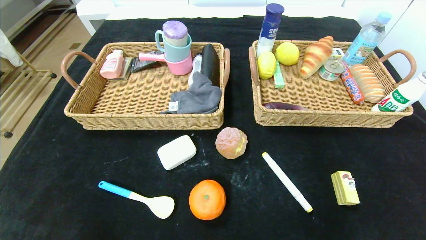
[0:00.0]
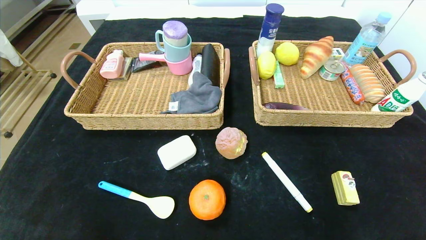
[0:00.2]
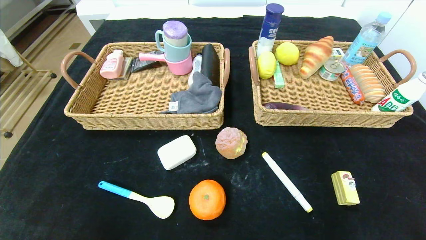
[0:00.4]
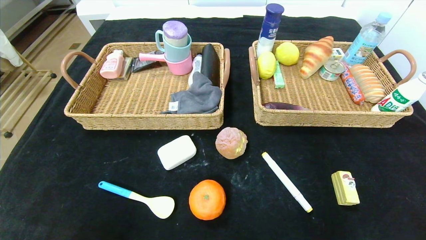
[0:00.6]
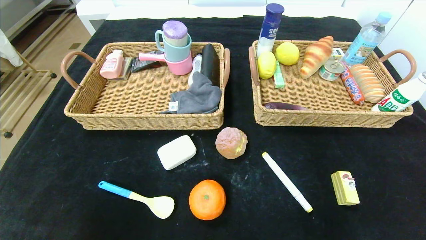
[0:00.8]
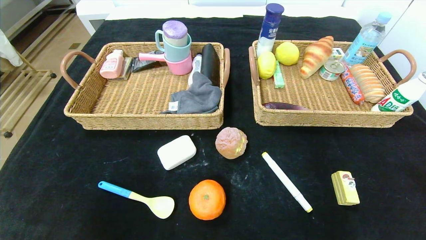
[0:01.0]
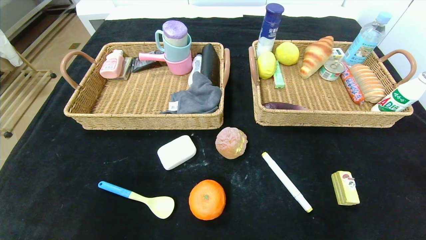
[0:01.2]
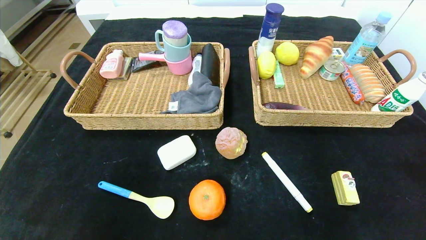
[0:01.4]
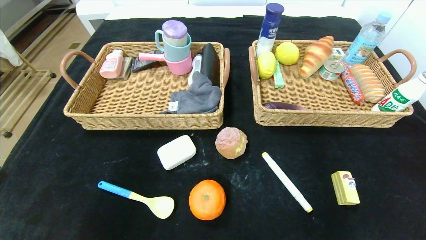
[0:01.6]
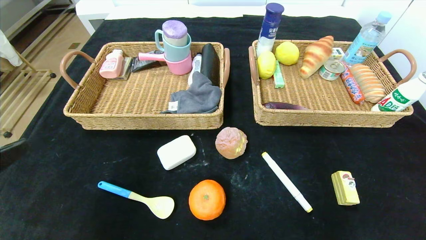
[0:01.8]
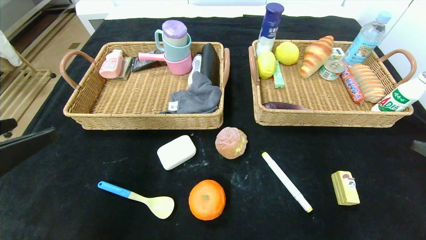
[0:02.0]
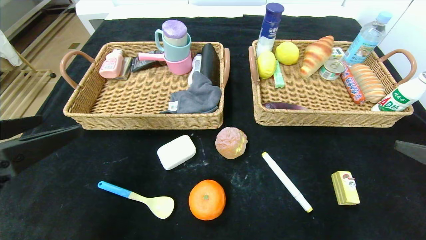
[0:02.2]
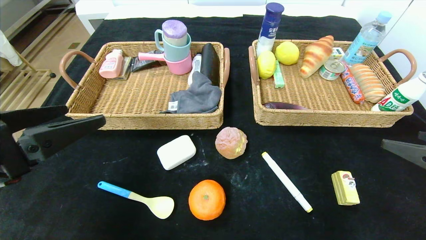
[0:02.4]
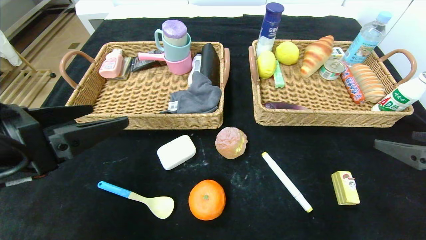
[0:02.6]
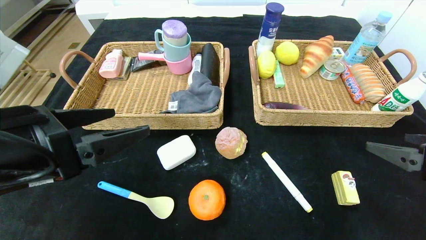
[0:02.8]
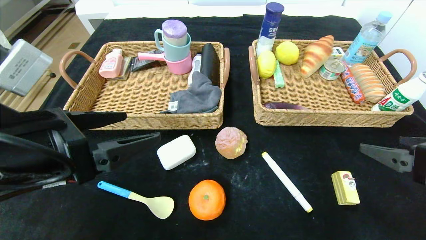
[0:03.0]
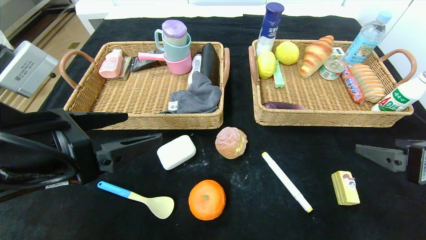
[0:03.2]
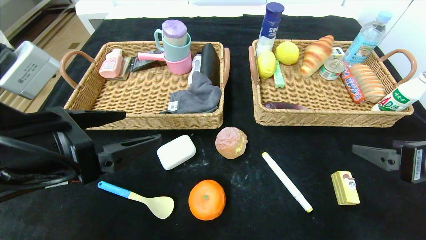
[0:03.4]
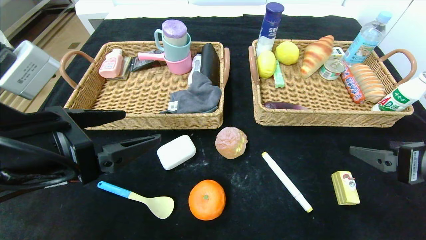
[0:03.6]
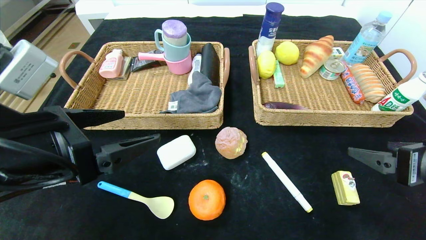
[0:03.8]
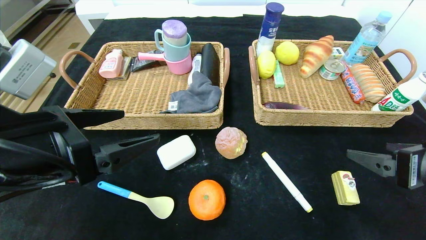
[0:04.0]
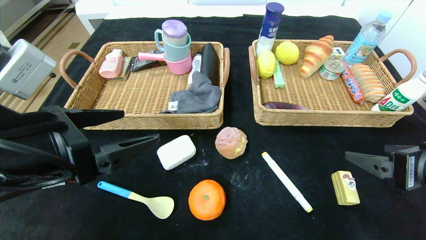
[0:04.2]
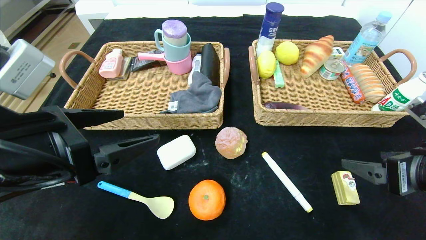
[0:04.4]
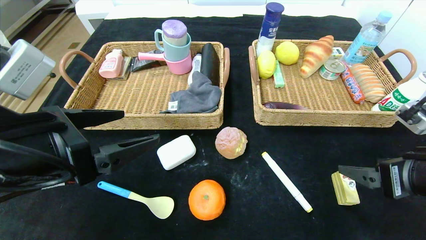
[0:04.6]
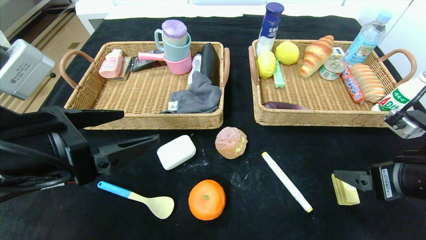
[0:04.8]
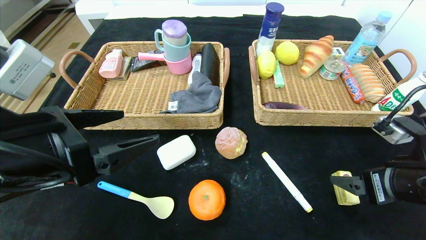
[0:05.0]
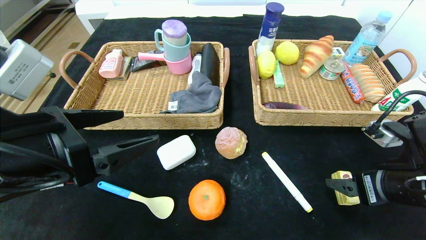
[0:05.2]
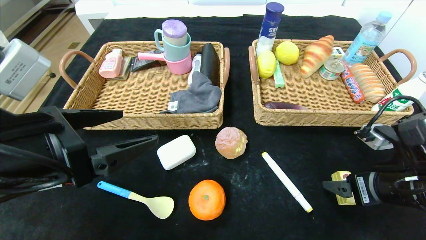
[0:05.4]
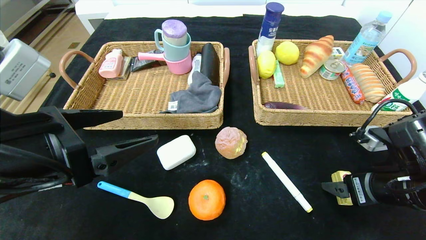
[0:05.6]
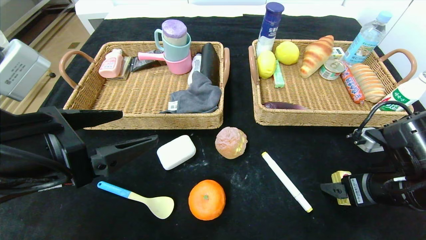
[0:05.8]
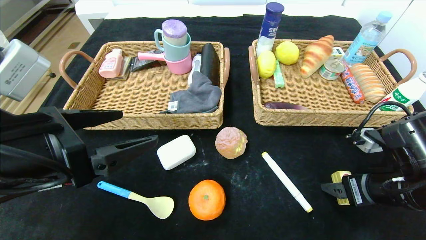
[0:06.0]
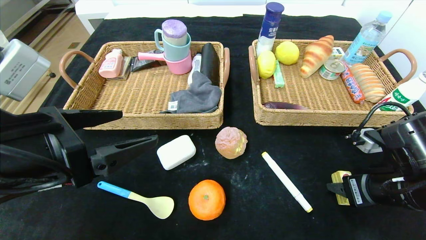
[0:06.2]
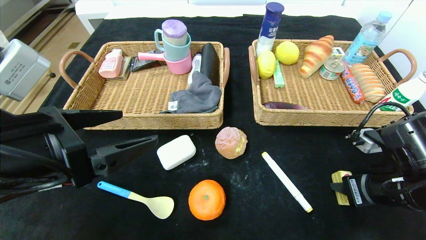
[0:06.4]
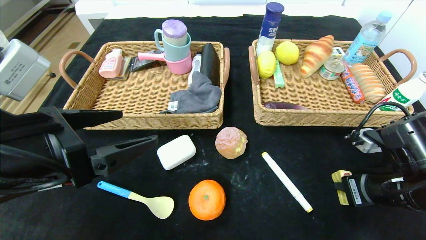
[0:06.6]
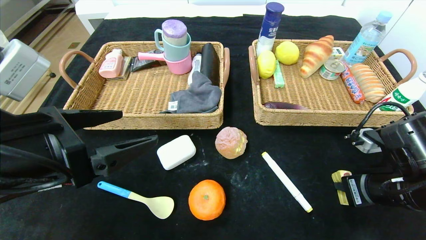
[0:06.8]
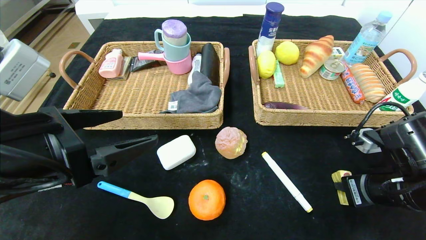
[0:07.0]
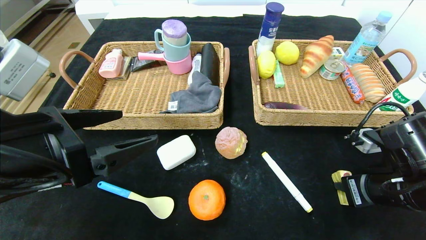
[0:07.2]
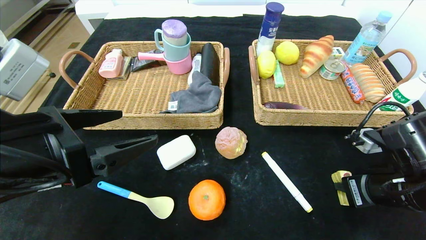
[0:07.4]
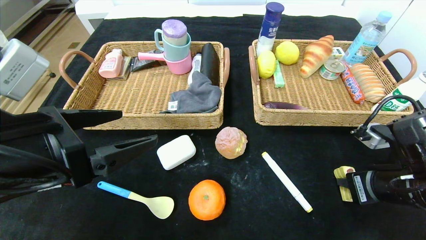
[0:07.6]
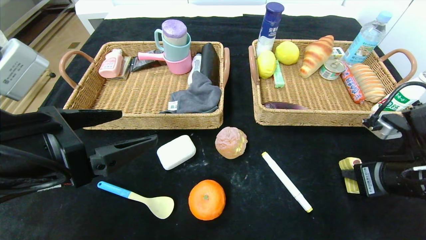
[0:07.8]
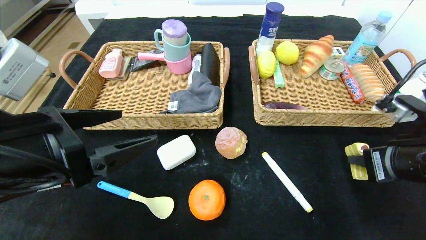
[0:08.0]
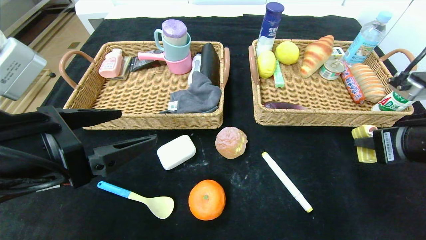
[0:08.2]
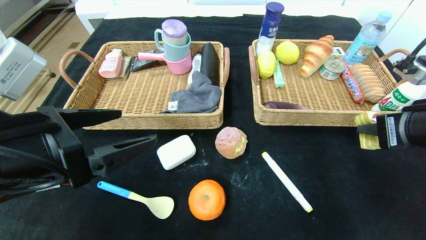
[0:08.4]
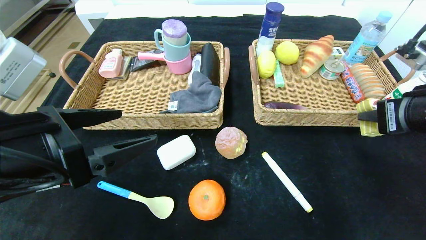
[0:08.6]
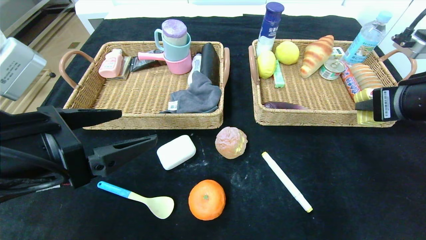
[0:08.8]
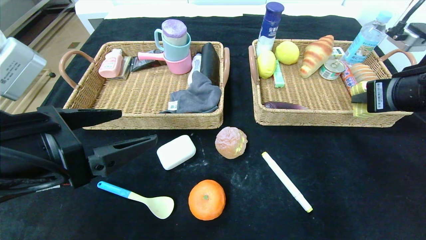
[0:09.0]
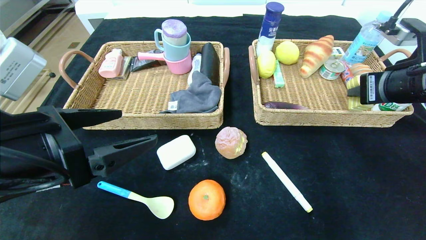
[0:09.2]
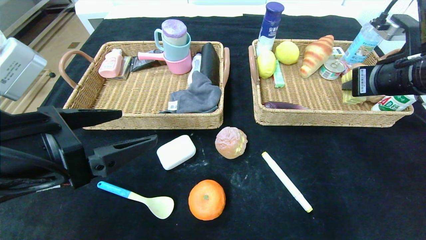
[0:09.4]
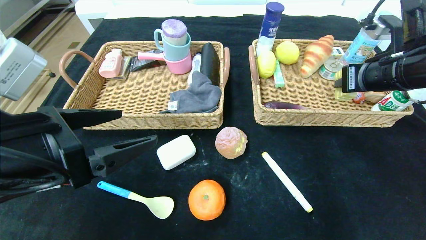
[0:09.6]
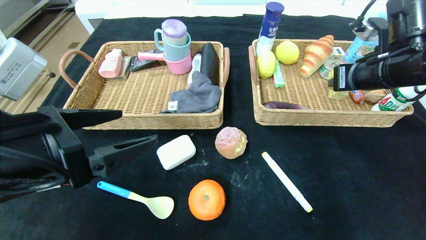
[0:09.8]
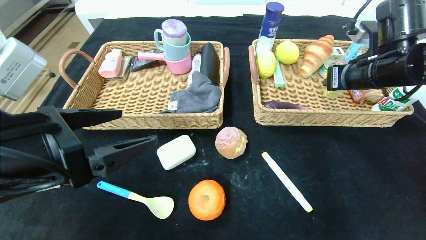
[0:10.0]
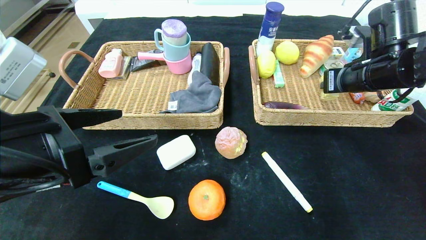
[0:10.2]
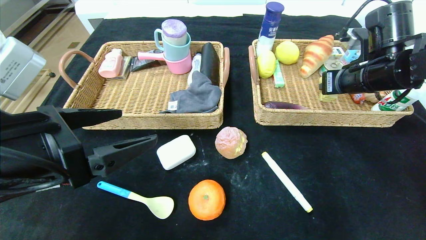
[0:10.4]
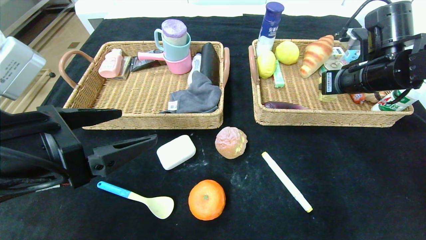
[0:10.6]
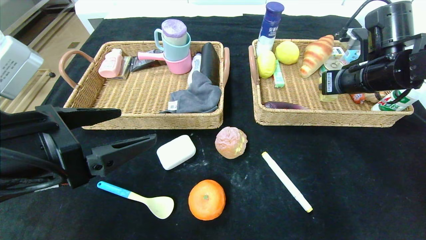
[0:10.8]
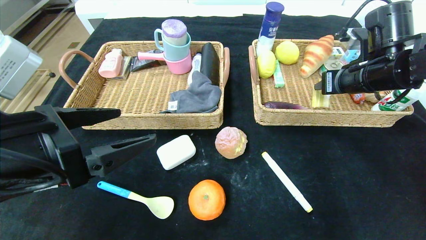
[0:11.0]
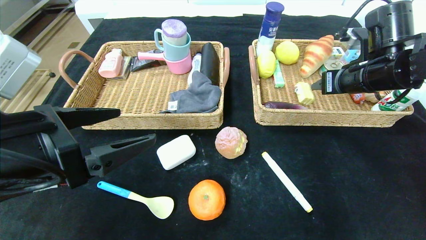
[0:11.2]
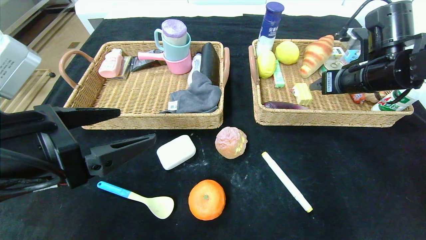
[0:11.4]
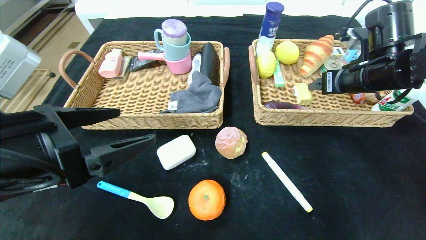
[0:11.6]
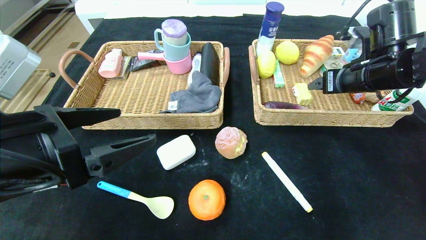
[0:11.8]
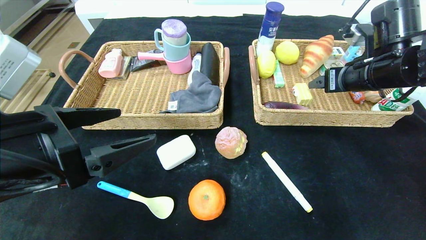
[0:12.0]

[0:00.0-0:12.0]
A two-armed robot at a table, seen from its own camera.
Step, 0:00.0 to 0:11.4: Grasp the yellow cake and put it in the right basket.
0:00.0 to 0:01.6: The left gripper is displaced upward by approximately 20 cm.
0:01.6 to 0:03.0: The right gripper shifts approximately 10 cm forward; the left gripper heads forward and to the right, covering approximately 15 cm.
0:03.0 to 0:04.4: There are only small adjustments of the grippers.
0:04.4 to 0:06.0: The right gripper shifts approximately 5 cm downward.
0:06.0 to 0:07.6: The right gripper closes.
0:07.6 to 0:09.0: The right gripper goes roughly 10 cm upward.
0:09.0 to 0:10.4: The right gripper heads forward, covering approximately 10 cm.
0:10.4 to 0:12.0: The right gripper opens its fingers.

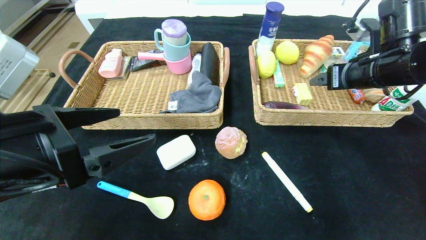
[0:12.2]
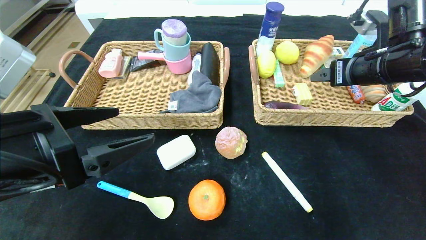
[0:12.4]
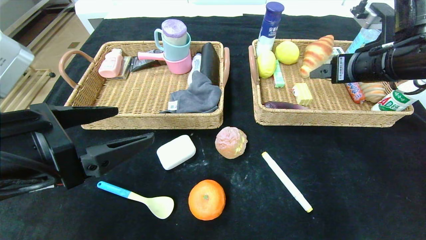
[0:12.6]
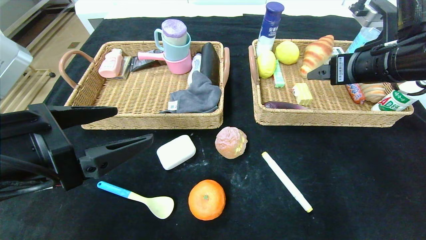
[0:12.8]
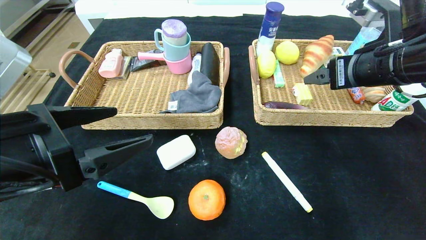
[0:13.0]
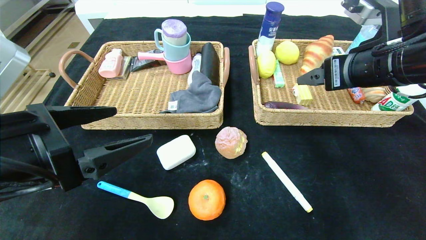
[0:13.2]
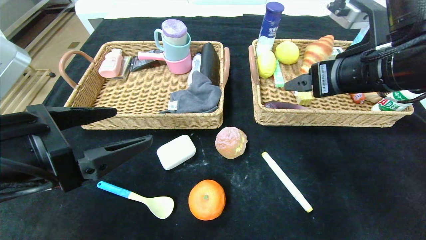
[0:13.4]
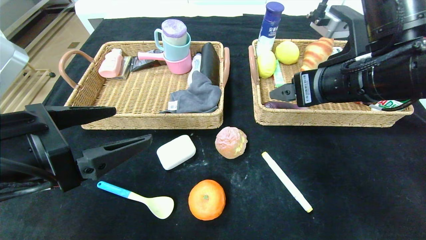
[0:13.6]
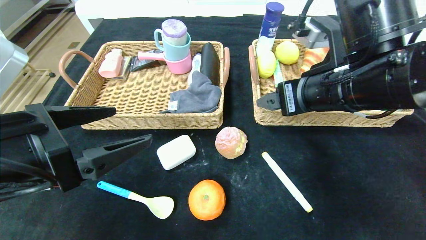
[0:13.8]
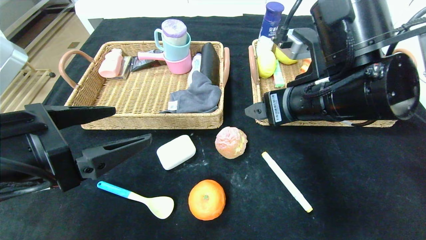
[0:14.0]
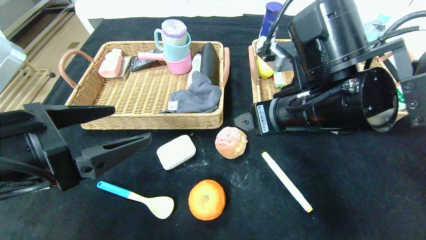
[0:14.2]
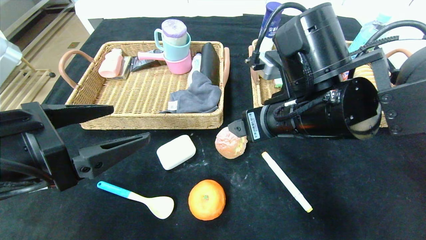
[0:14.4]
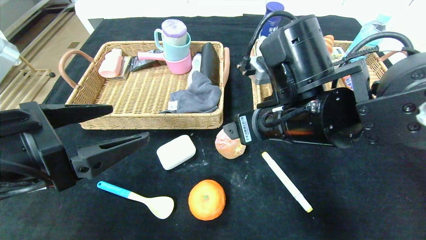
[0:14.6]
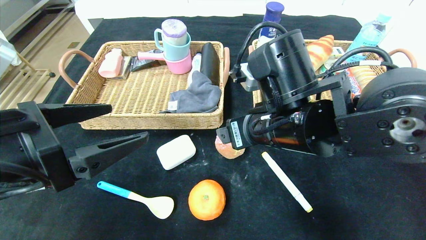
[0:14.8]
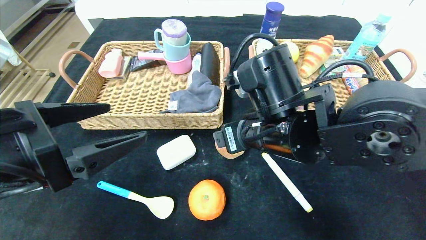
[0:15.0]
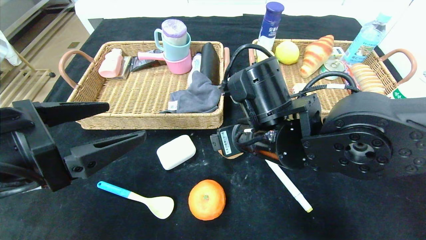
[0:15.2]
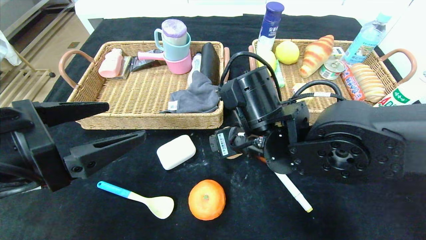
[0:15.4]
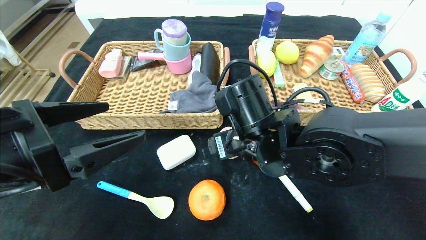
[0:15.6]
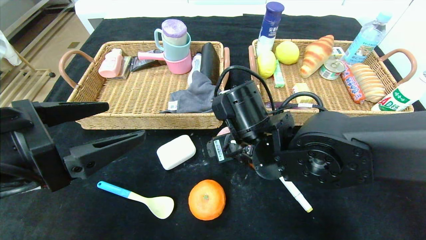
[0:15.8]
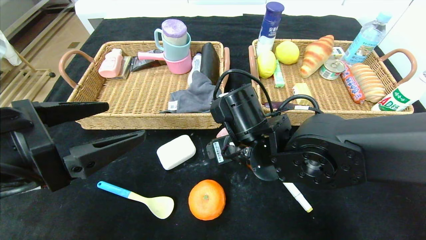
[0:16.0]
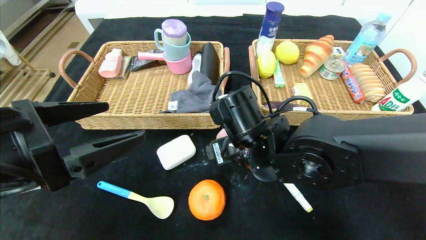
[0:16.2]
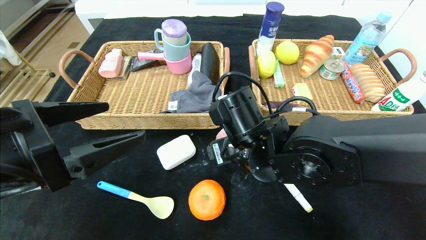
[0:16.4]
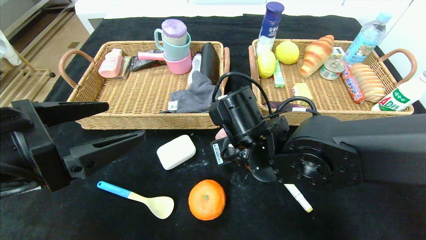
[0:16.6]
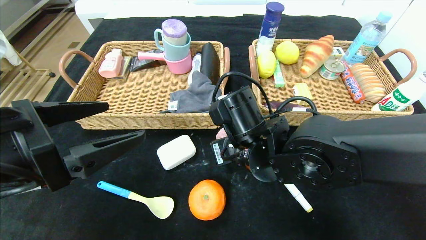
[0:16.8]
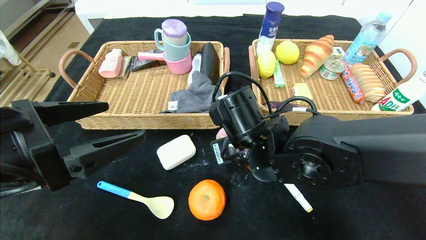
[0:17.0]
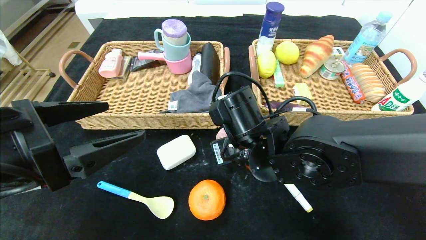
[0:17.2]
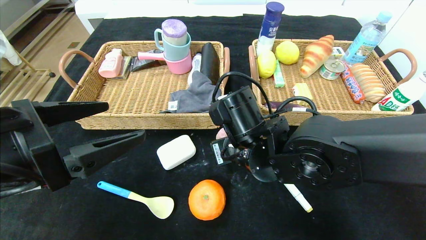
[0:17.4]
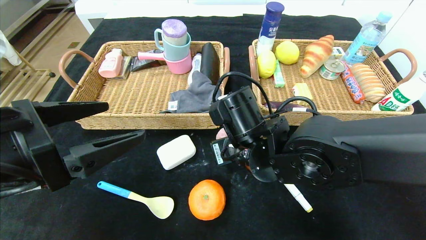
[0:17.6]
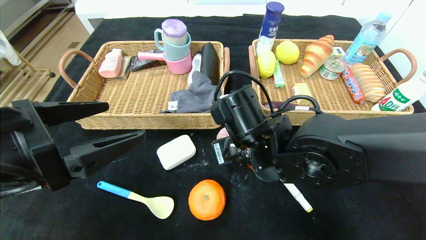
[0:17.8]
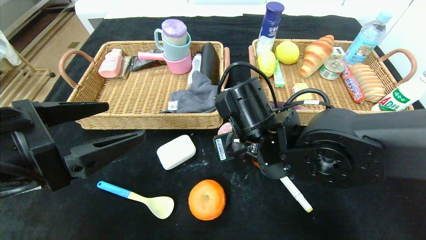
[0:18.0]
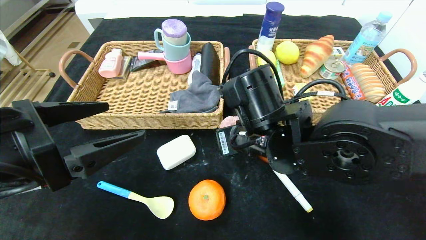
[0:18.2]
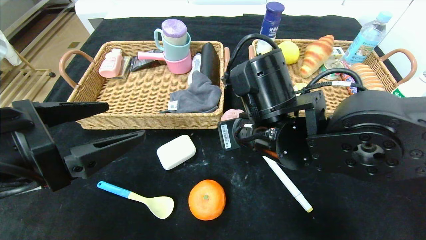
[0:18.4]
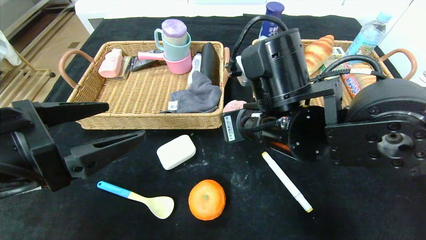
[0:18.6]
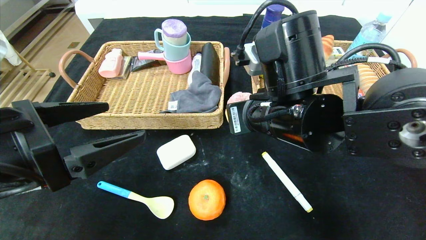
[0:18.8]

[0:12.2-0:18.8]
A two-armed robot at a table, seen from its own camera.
0:12.2 to 0:13.8: The right gripper goes approximately 15 cm to the left and backward.
0:13.8 to 0:15.4: The right gripper goes some 15 cm to the left and downward.
0:15.4 to 0:17.2: The right gripper closes.
0:17.2 to 0:18.8: The right gripper moves upward, approximately 5 cm.
